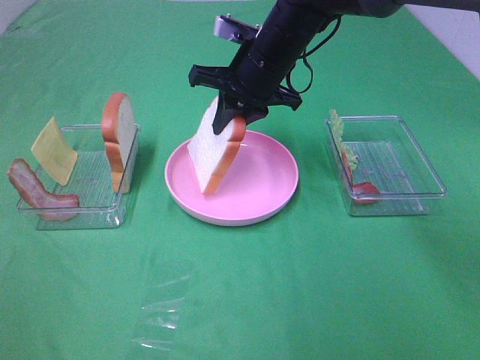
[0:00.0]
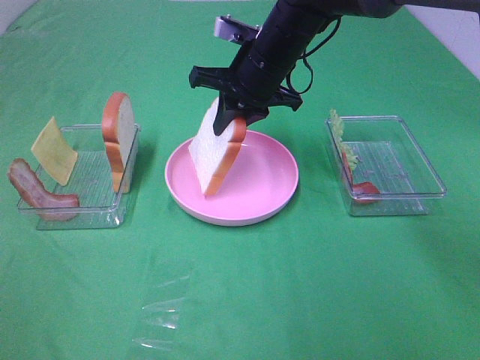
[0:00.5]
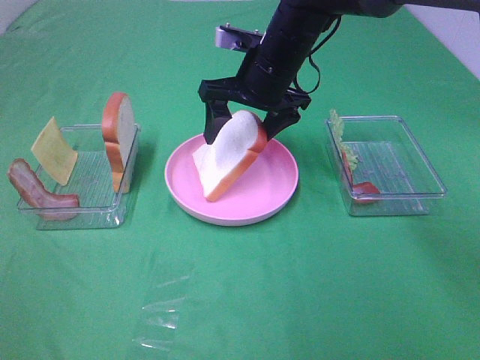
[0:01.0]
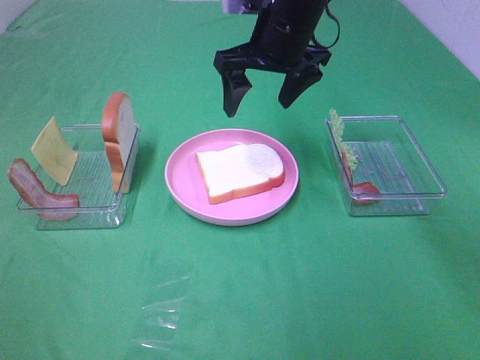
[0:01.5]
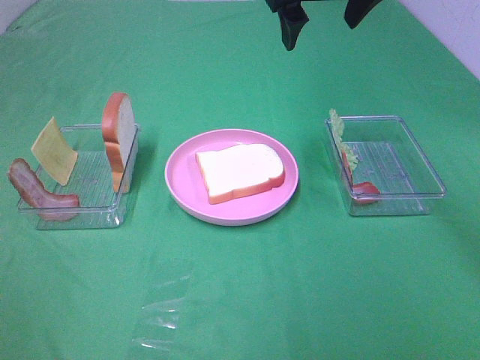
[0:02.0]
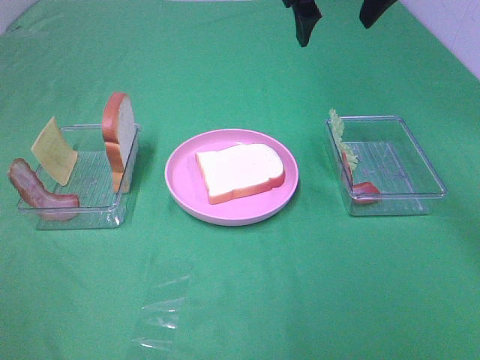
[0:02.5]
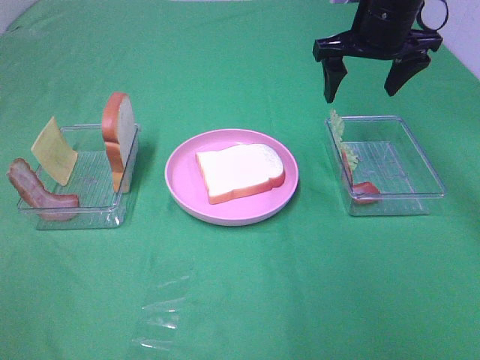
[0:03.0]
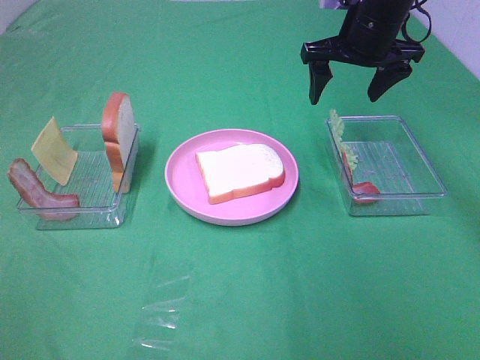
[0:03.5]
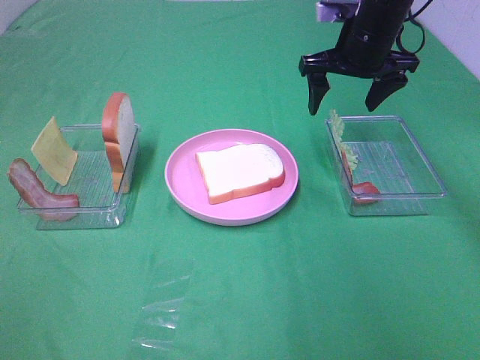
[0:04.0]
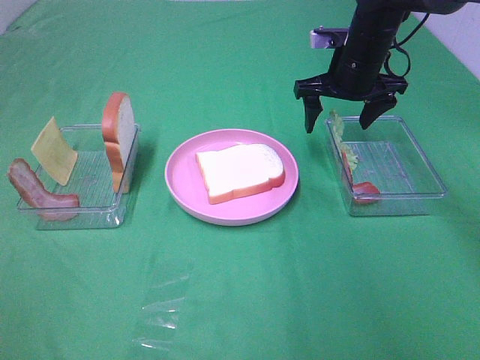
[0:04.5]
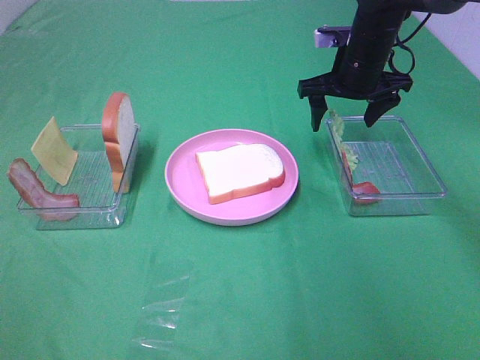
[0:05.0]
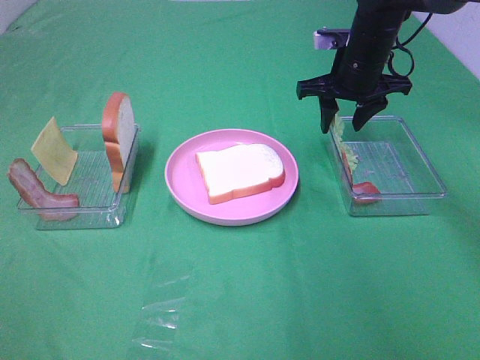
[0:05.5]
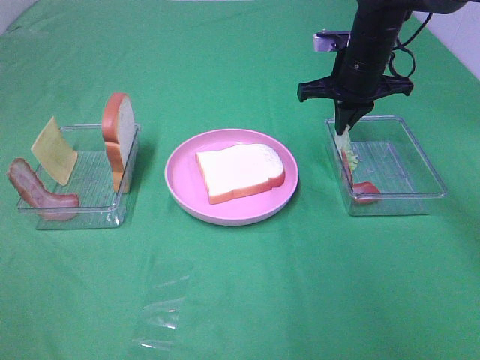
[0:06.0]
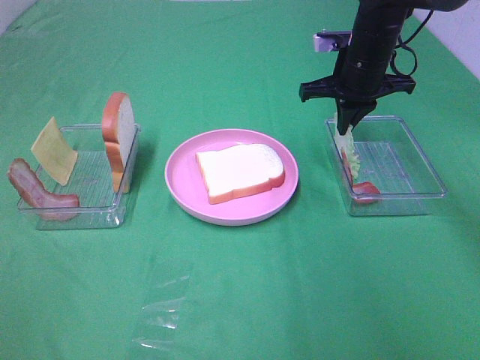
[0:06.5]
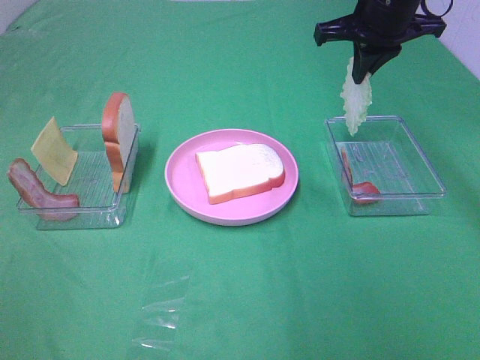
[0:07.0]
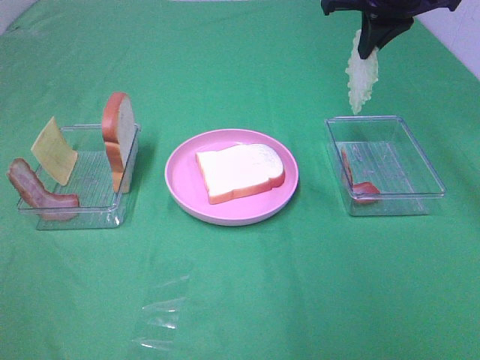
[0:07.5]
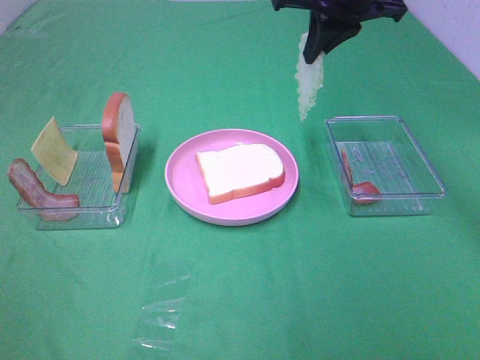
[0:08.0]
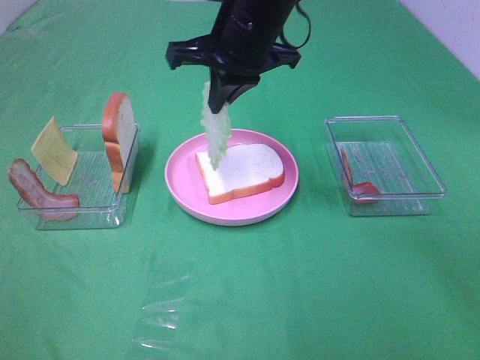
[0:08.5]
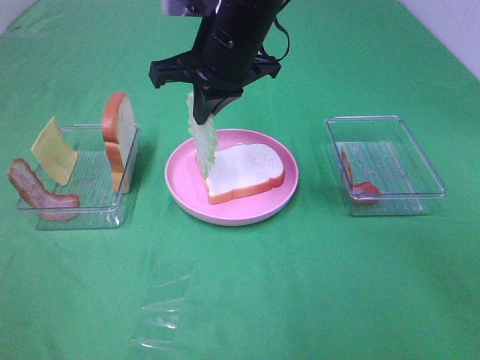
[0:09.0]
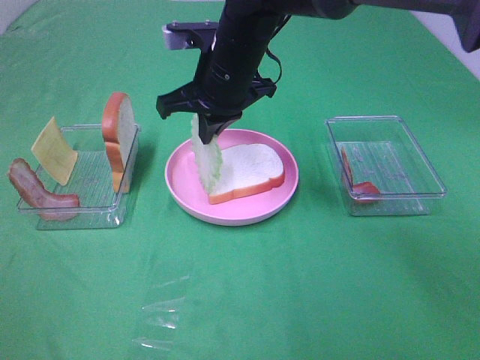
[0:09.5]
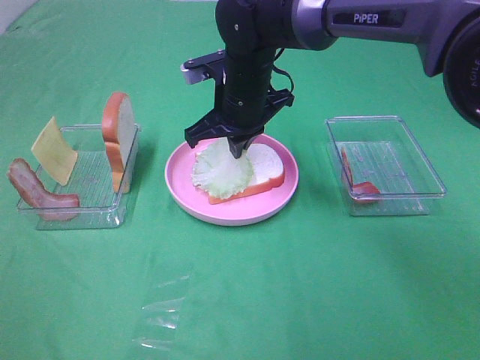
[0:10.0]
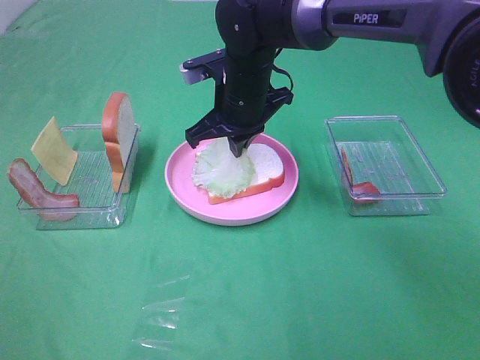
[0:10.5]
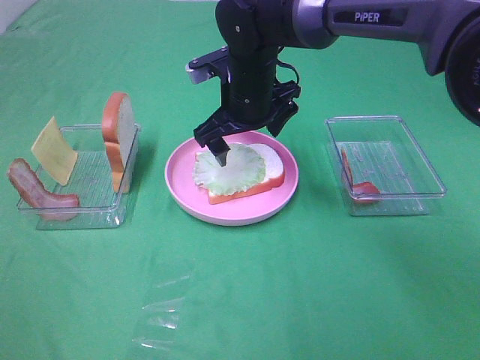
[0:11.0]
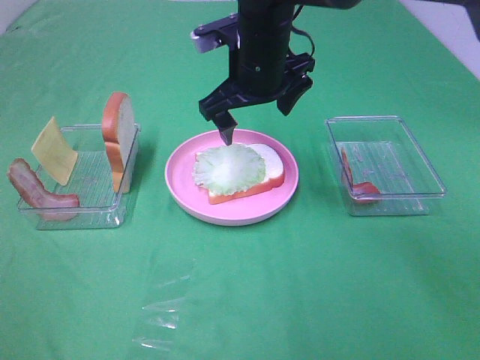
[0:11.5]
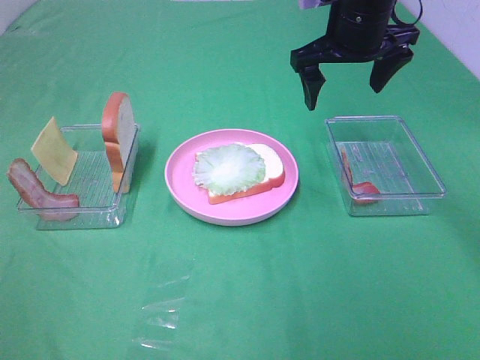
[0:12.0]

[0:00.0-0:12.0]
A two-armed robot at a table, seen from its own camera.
Task of the whole recording: Make sandwiches.
Step, 0:01.5 to 0:05.5: Right hand:grab the lettuce slice.
Step, 0:06.0 to 0:10.5: Right hand:place the lettuce slice on the bread slice.
0:00.0 to 0:02.0: The right gripper moves upward and to the right, about 15 cm, and opens up.
0:02.0 to 0:04.0: The right gripper goes about 15 cm downward and to the right.
0:04.0 to 0:06.0: The right gripper closes its fingers.
0:06.0 to 0:08.0: The right gripper shifts some 15 cm upward and backward.
0:08.0 to 0:10.0: The right gripper heads downward and to the left, covering some 20 cm.
0:10.0 to 0:12.0: The right gripper moves to the right and upward, some 15 cm, and opens up.

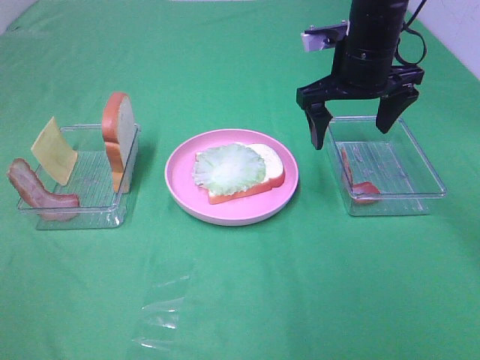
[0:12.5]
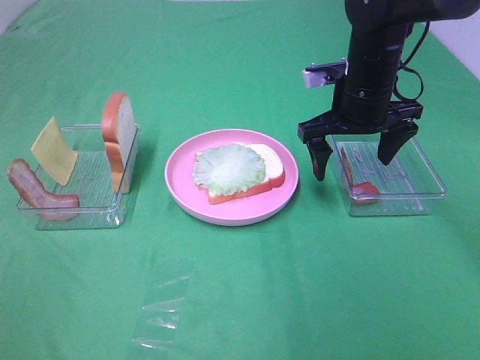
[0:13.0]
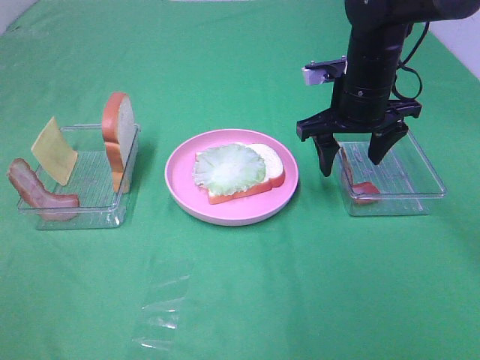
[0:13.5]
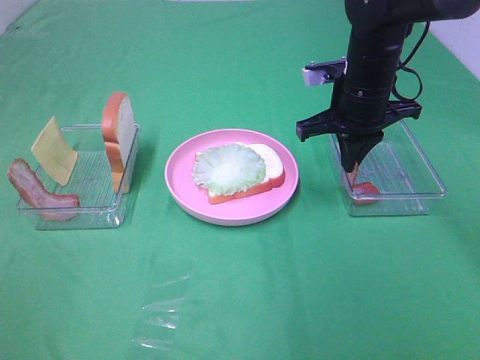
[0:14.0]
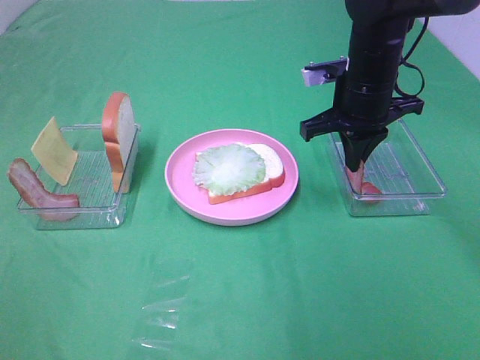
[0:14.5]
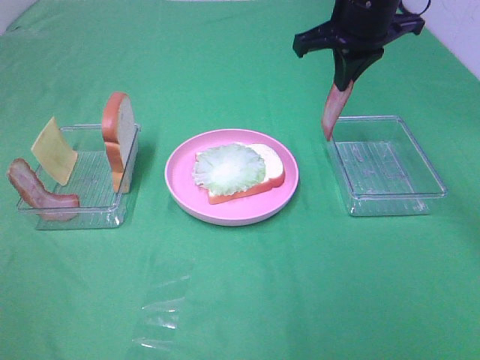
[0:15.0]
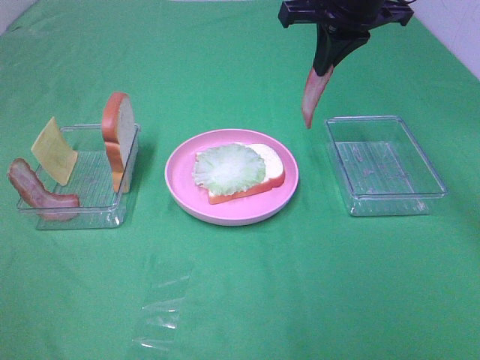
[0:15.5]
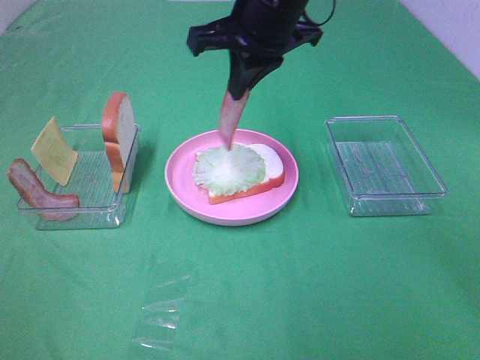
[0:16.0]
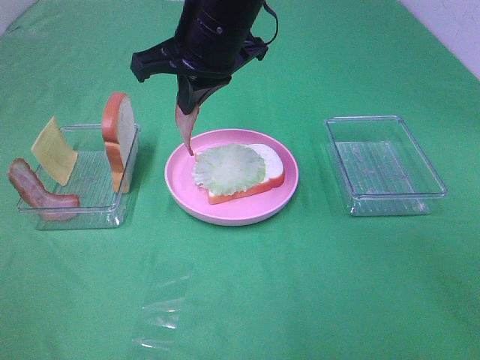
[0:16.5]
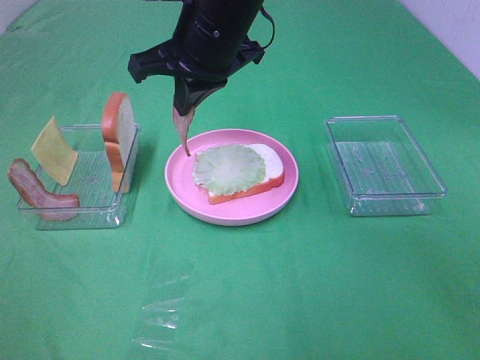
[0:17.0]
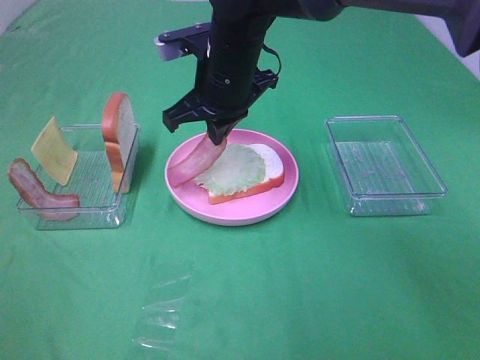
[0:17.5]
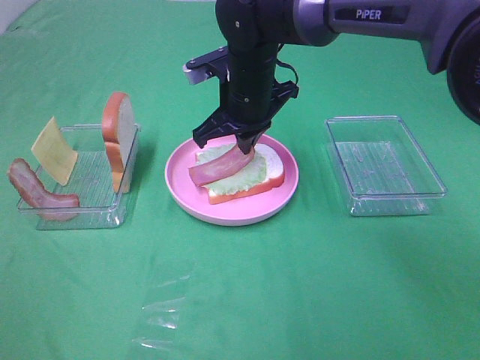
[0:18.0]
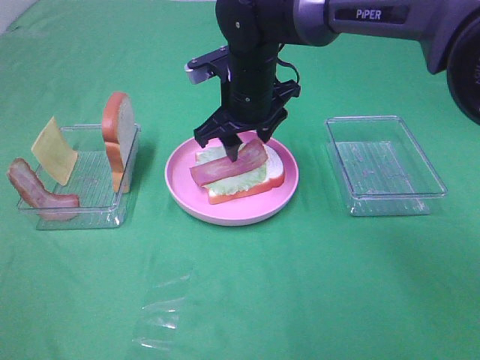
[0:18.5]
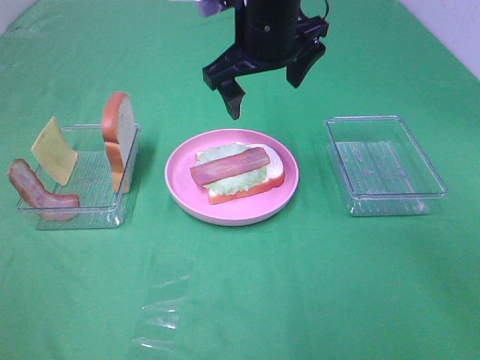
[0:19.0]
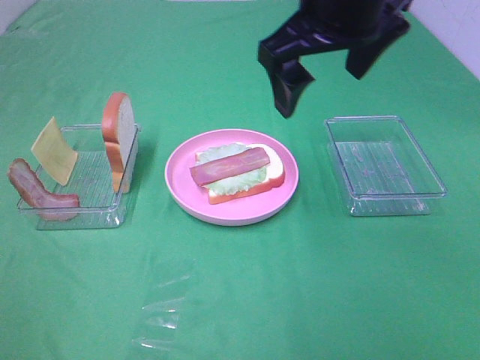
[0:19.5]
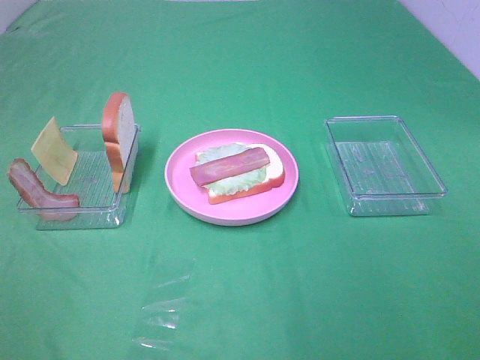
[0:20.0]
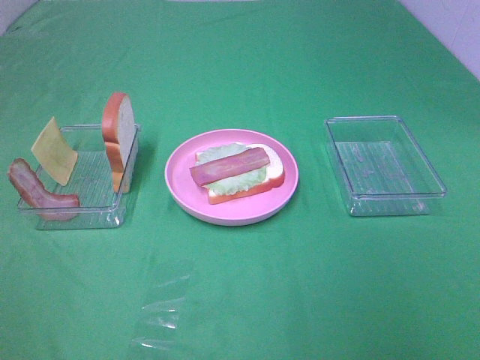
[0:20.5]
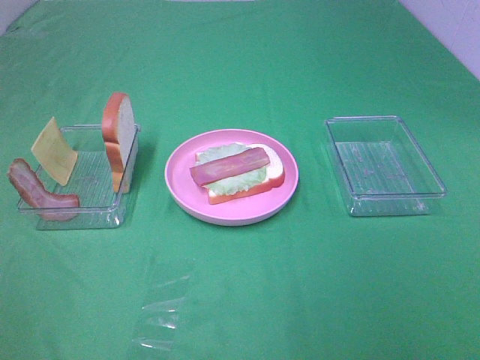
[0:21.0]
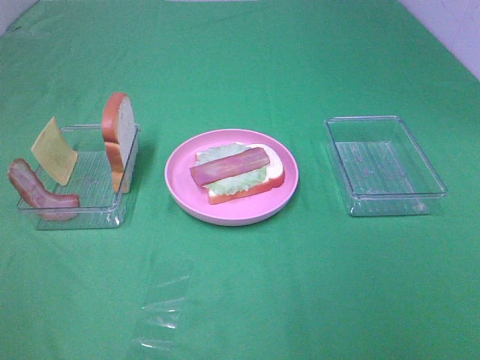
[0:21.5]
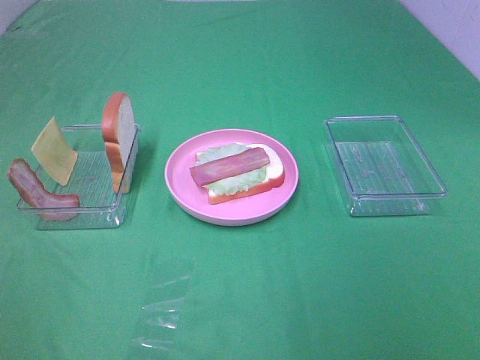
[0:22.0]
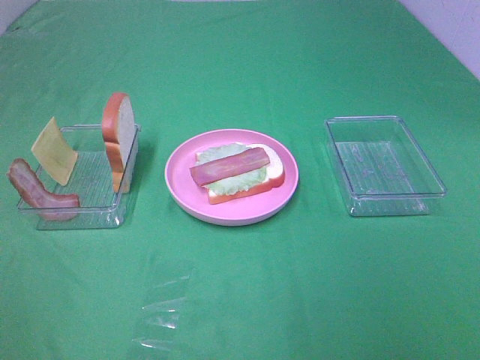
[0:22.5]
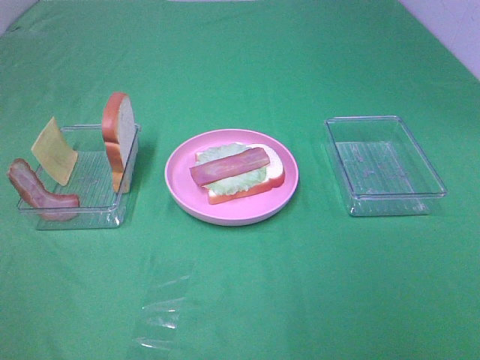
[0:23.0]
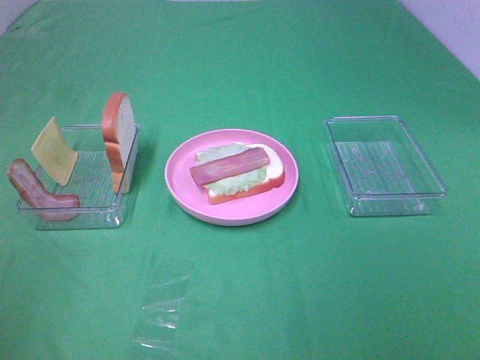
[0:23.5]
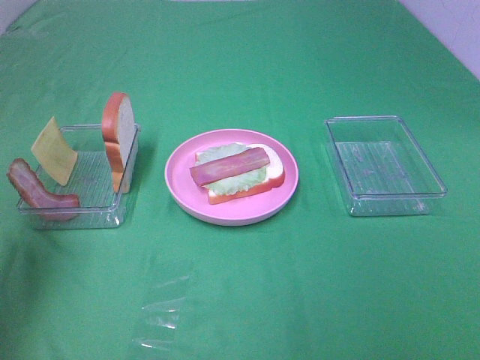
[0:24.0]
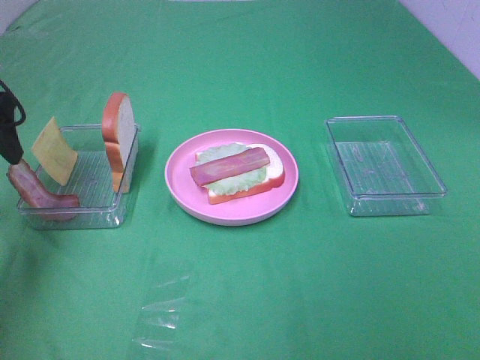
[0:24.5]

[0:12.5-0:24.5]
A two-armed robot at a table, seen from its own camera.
Task of the whole recording: Make sandwiches.
Step, 0:14.0 to 0:18.5: Right hand:place bacon on lettuce slice.
0:12.5 to 0:14.5: The right gripper closes up.
0:14.5 to 0:16.5: The right gripper moves to the left and upward, approximately 20 cm.
0:16.5 to 0:18.5: The right gripper heads downward, covering approximately 10 cm, and opens its fingers.
0:18.5 to 0:20.5: The right gripper travels backward and to the right by about 50 cm.
0:22.5 to 0:24.5: The left gripper heads forward, covering approximately 35 cm.

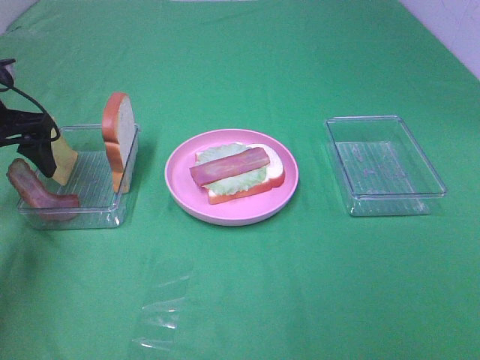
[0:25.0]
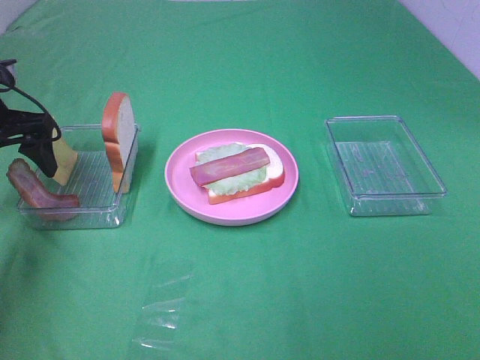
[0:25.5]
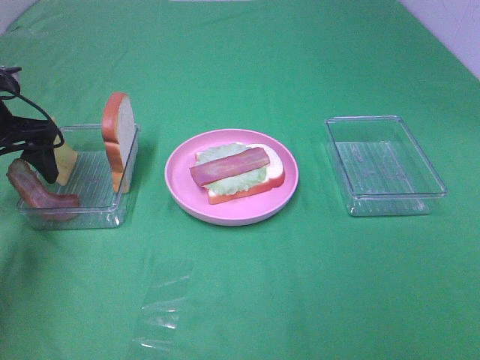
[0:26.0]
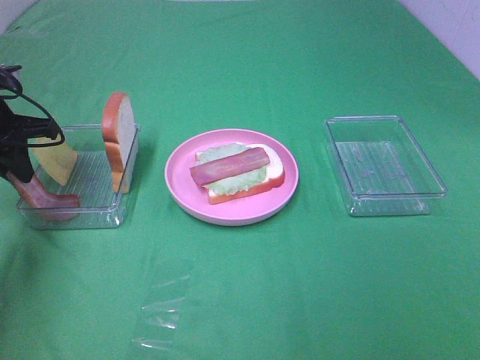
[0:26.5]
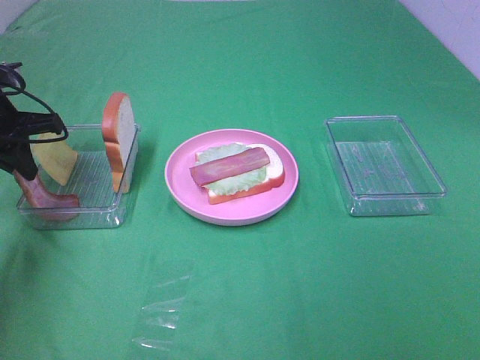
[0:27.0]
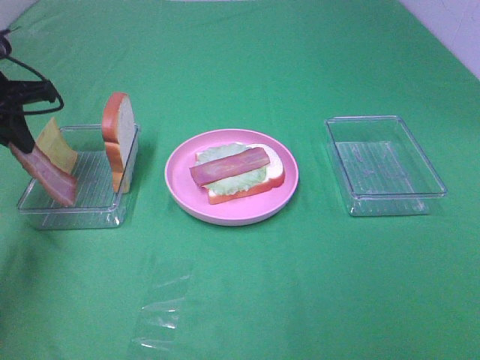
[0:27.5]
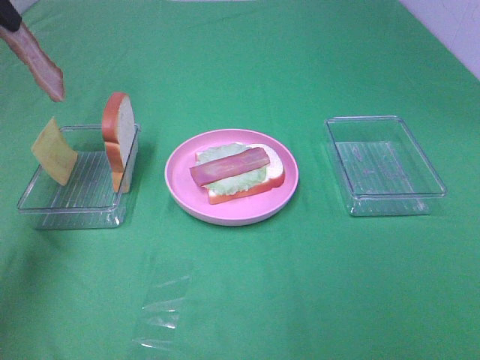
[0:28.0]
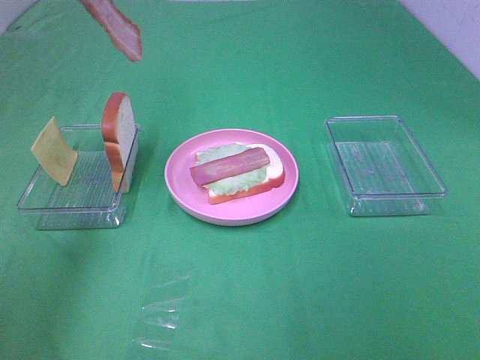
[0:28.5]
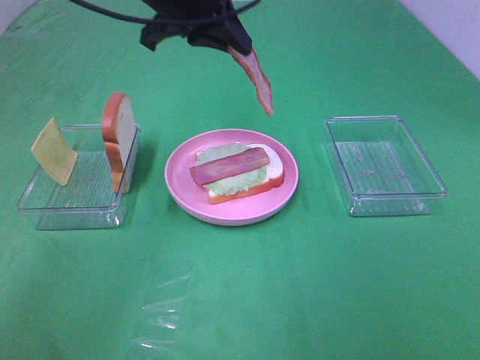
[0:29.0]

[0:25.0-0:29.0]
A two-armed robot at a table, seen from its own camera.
Task of the whole recording: Make sandwiches.
Step, 0:25.0 to 0:27.0: Left hand:grab the bacon.
0:25.0 to 0:27.0: The left gripper closes up.
0:27.0 to 0:29.0: The left gripper shifts roughly 25 cm to the right and upward.
